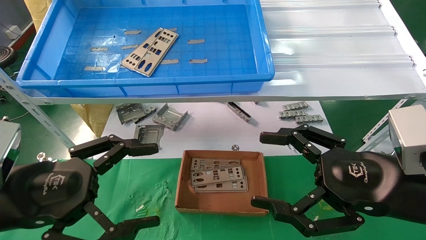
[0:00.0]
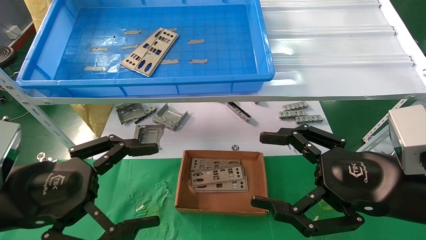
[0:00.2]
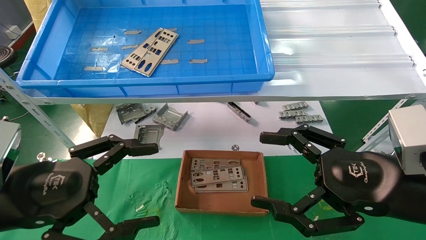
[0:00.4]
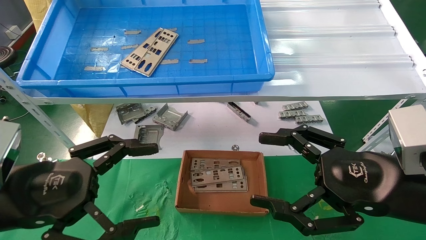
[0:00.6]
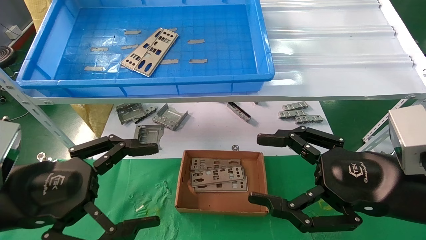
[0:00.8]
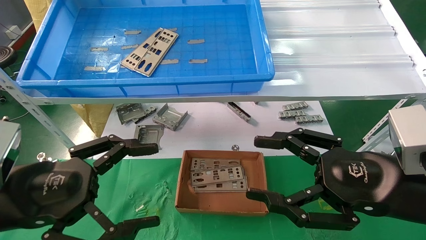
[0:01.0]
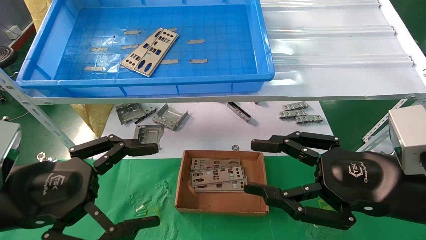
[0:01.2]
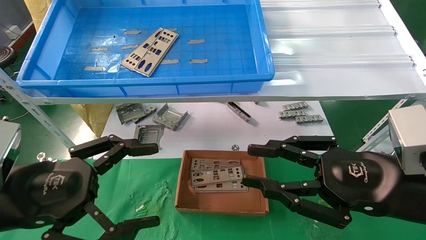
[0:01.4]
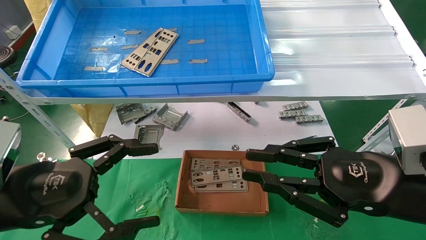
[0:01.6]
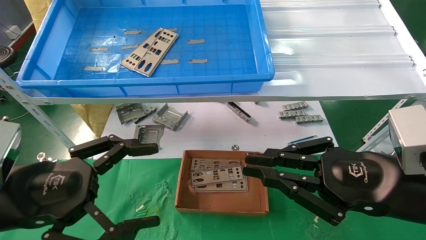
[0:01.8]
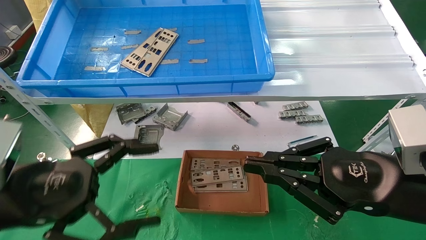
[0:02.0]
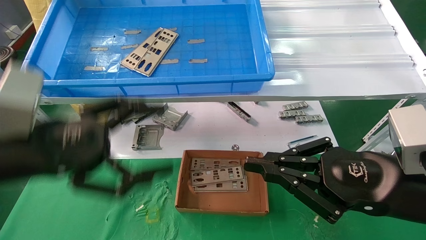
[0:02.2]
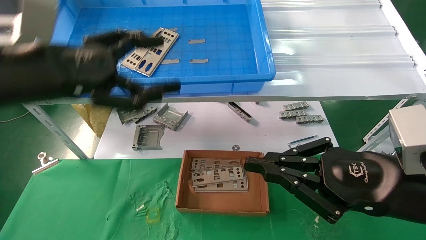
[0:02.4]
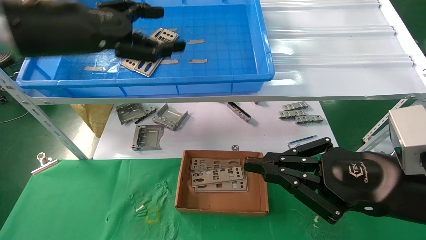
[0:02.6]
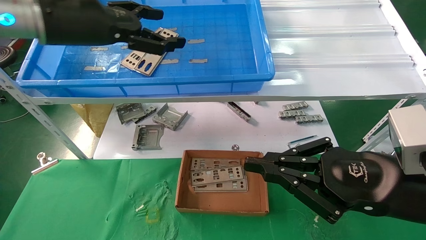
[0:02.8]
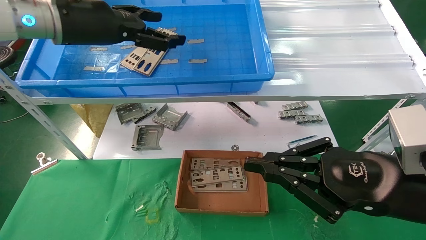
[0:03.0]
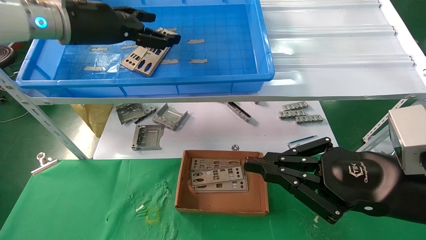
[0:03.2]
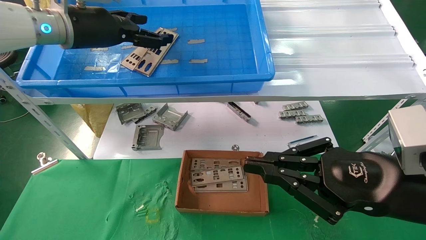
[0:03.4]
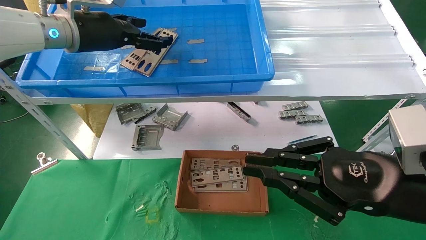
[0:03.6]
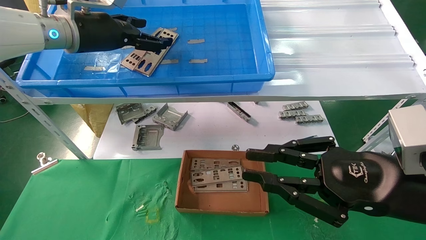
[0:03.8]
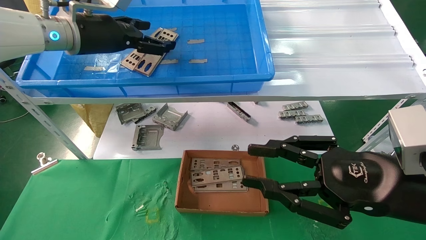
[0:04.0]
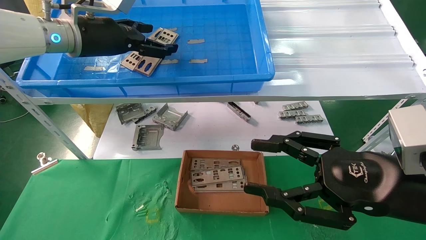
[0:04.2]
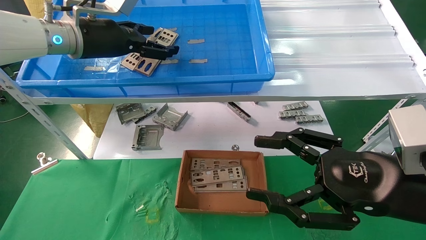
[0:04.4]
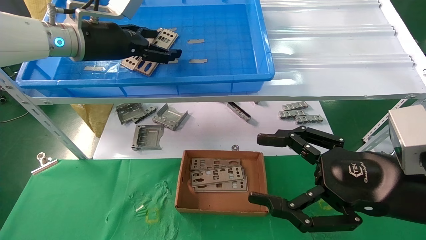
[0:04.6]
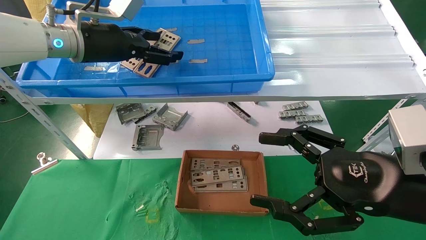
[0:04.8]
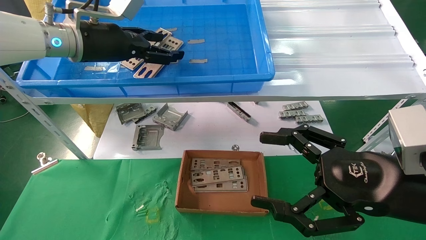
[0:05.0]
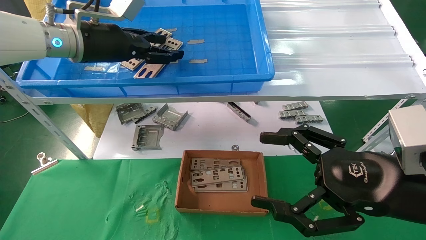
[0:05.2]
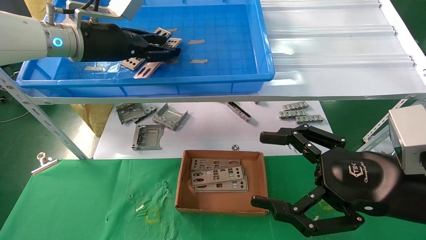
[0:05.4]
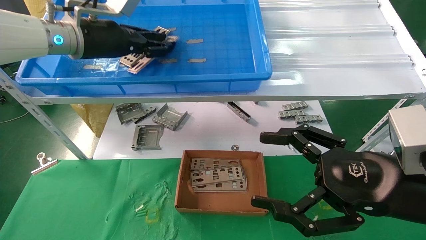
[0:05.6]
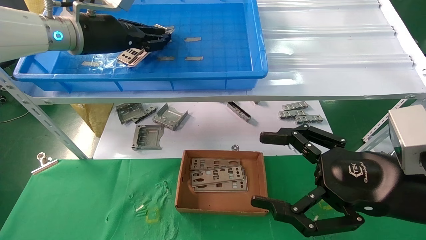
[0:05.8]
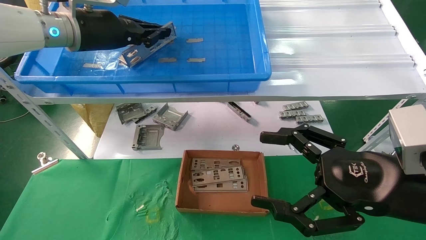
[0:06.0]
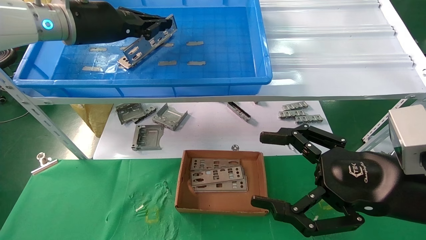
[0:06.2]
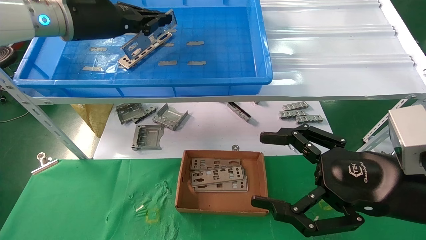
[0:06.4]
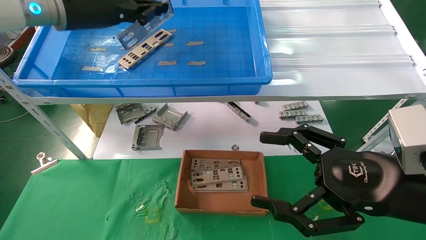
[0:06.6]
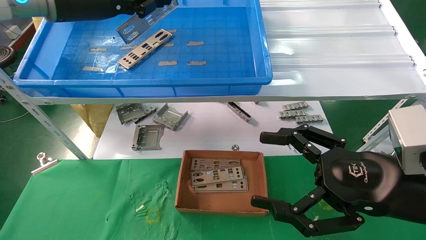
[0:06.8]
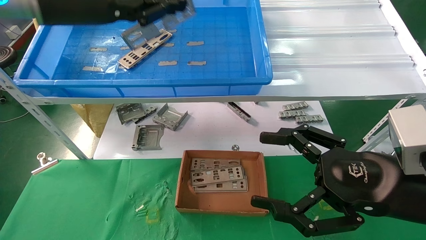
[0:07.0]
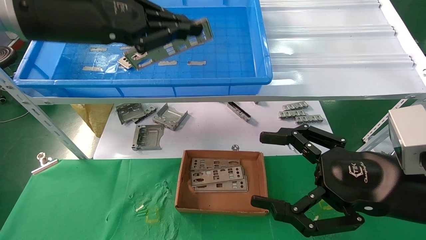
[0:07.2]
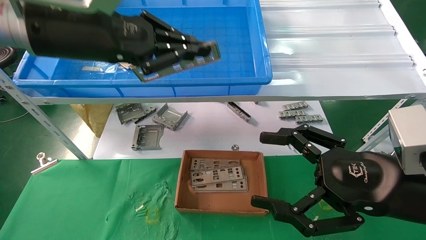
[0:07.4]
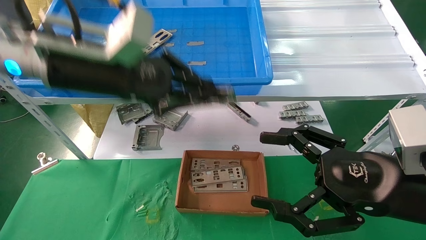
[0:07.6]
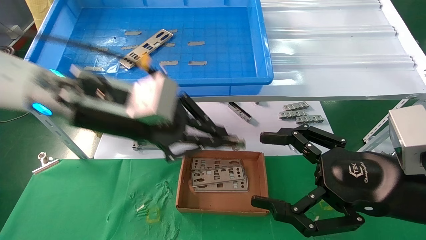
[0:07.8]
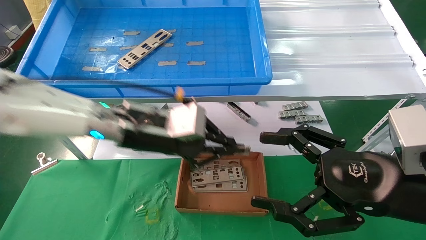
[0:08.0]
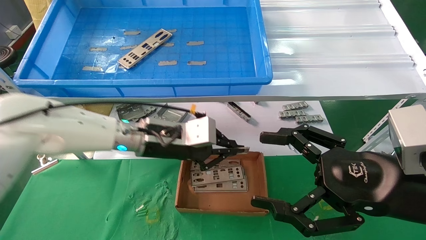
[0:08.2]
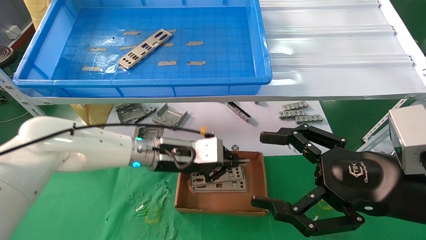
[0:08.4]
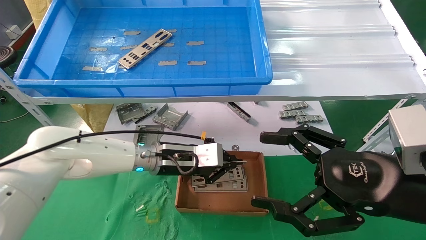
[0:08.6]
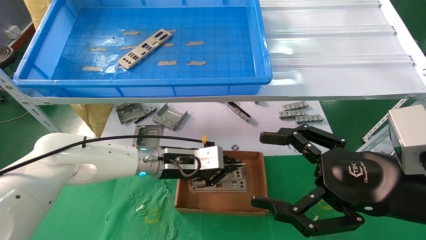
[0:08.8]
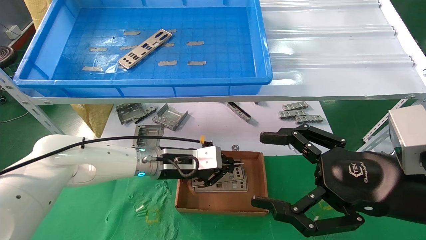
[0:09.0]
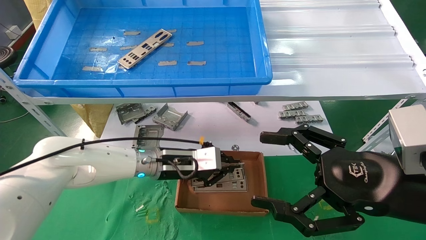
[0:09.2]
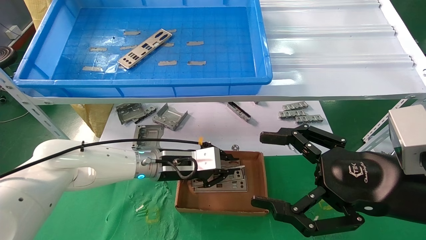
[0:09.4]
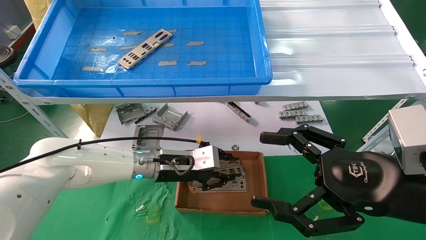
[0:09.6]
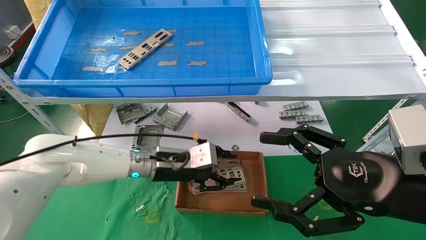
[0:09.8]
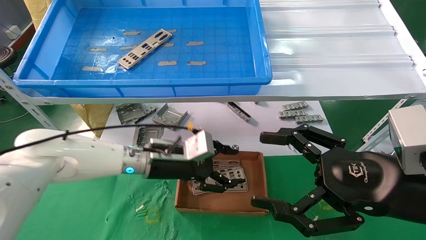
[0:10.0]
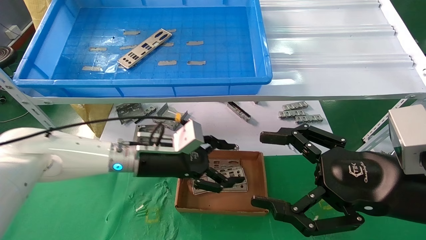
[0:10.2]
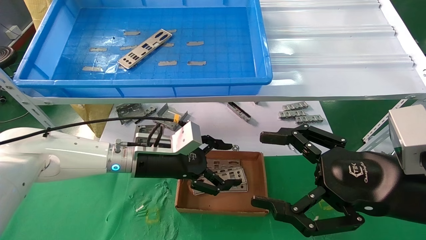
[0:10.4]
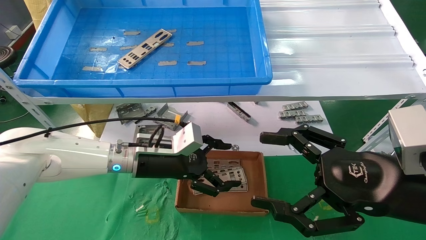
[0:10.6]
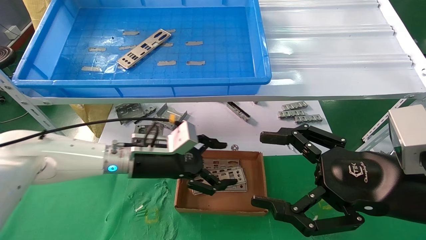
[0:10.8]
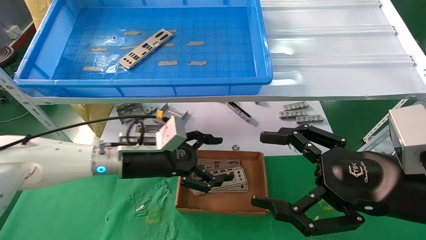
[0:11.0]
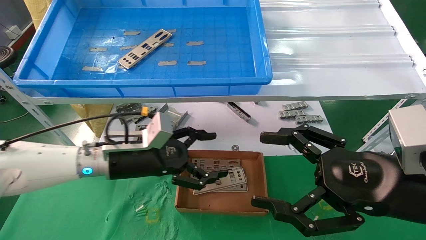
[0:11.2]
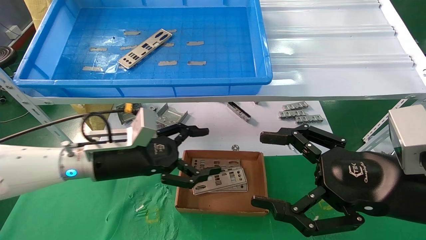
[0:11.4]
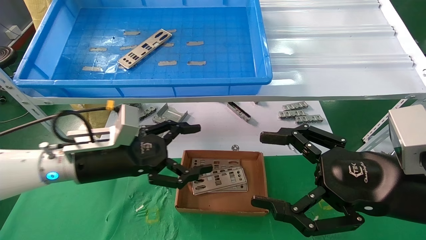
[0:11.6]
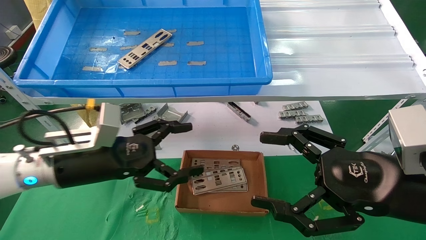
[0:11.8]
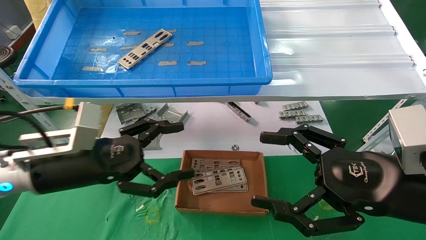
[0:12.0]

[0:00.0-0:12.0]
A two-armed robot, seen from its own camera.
Task of the whole recording: pick up the parts on the tray and put them in the cardboard box.
Step, 0:02.4 to 0:06.0: Pick up the IO bracket from the container box.
Step, 0:06.2 to 0:09.2: Place the IO bracket into the ingredient slot.
0:00.0 to 0:01.6: The right gripper closes its fingers.
0:01.6 to 0:03.0: The left gripper is displaced upward and forward by roughly 25 cm.
0:03.0 to 0:04.4: The right gripper opens its fingers.
0:04.4 to 0:06.0: The left gripper closes up; the right gripper opens up.
0:06.0 to 0:07.6: The left gripper goes approximately 10 cm backward and downward.
0:07.6 to 0:09.0: The left gripper goes approximately 25 cm downward and forward.
0:09.0 to 0:10.4: The left gripper changes place by some 5 cm, and opens.
0:10.4 to 0:12.0: The left gripper shifts roughly 15 cm to the left and backward.

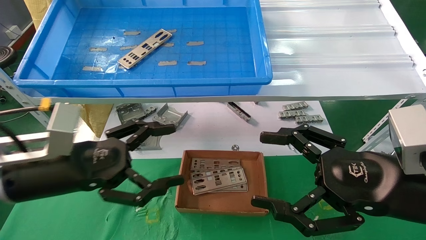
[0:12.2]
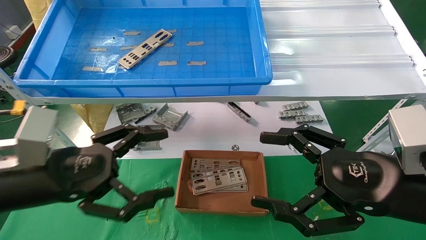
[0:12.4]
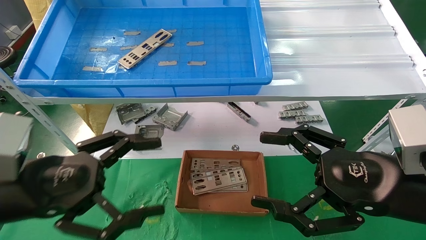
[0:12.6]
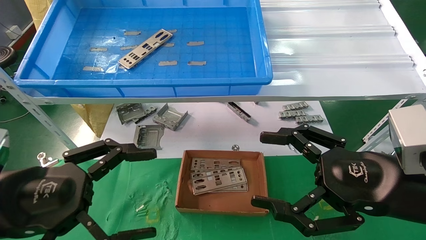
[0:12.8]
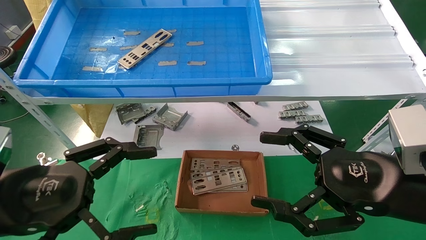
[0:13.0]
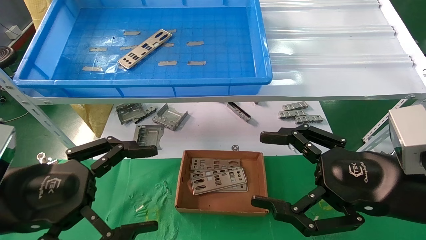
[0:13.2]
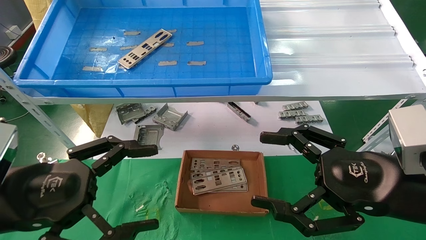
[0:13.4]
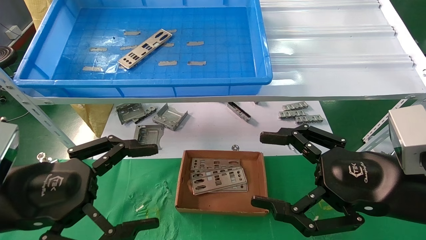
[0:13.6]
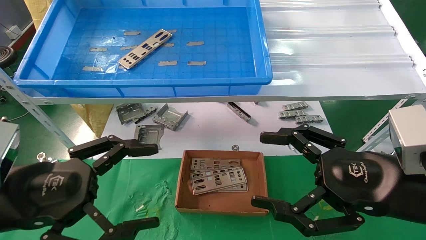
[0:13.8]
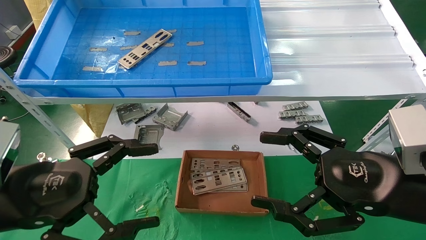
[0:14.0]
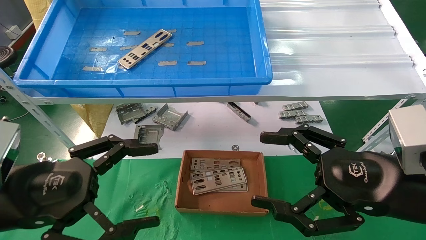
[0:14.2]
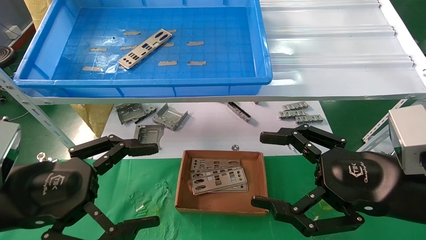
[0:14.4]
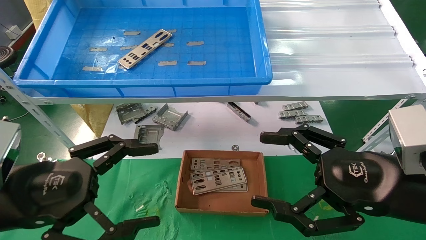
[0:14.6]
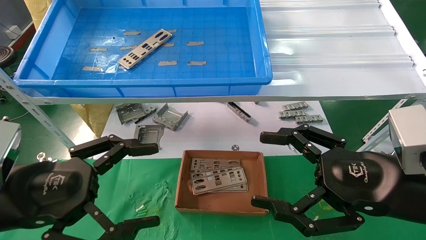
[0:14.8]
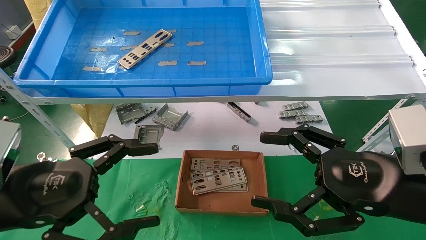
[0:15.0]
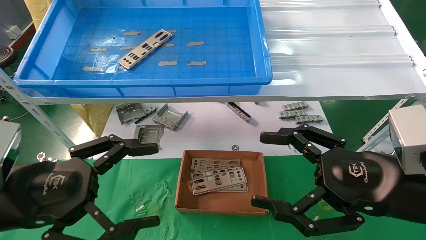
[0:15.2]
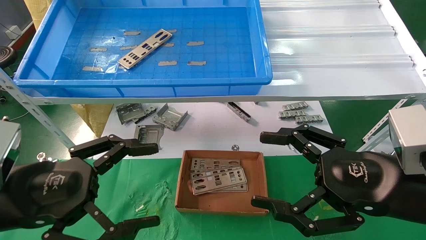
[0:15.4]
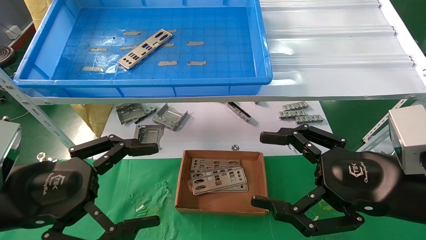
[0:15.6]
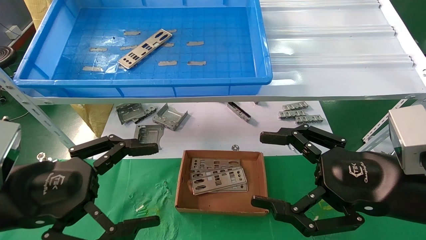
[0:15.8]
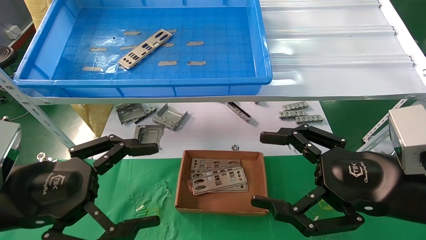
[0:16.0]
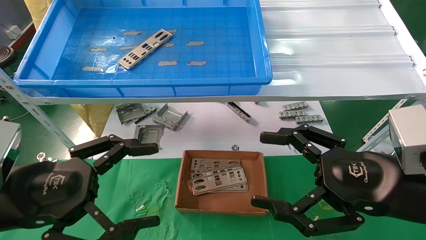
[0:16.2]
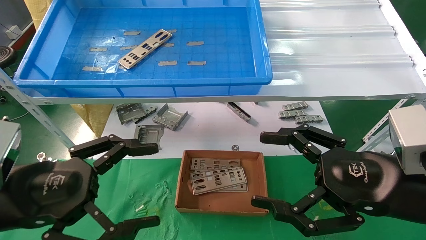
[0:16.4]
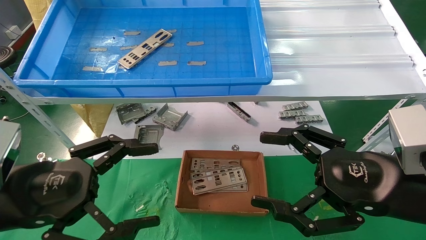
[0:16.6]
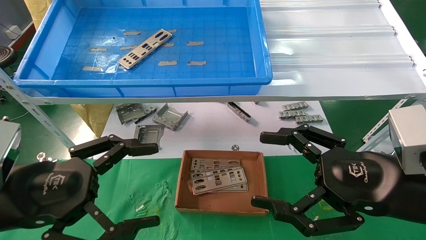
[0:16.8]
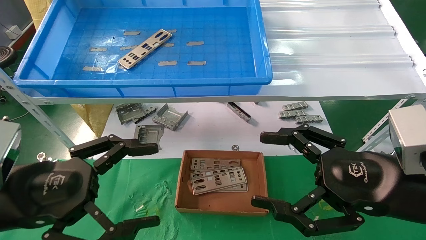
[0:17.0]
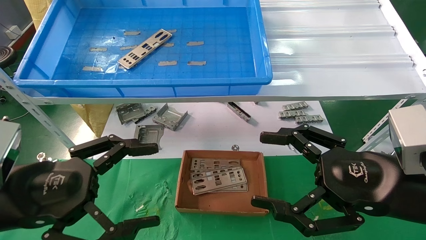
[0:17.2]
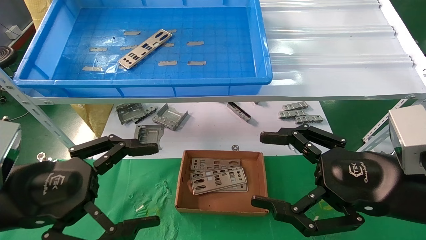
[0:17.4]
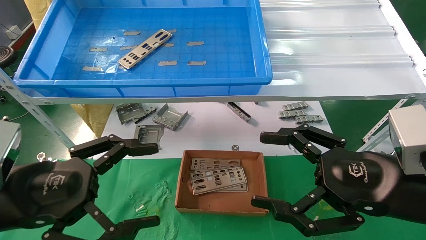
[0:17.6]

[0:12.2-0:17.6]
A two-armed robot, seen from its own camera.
Task of the whole recording: pick up the parts on the tray and put them in the cardboard box.
0:12.2 to 0:13.6: The left gripper heads backward, covering about 5 cm.
0:13.6 to 0:17.6: Both grippers stay put.
